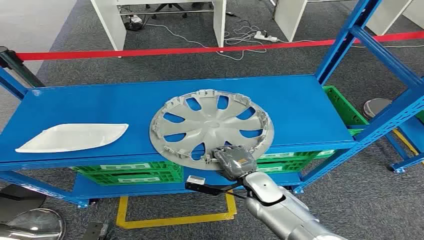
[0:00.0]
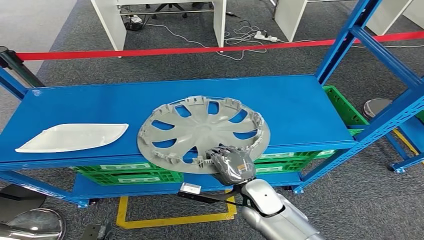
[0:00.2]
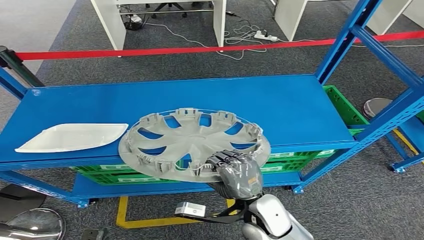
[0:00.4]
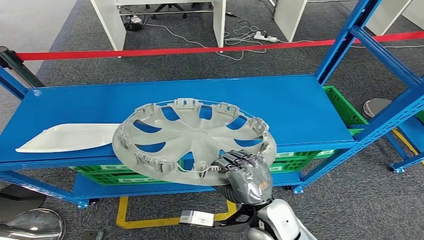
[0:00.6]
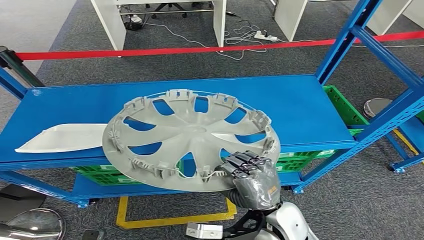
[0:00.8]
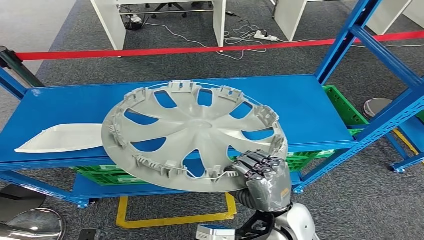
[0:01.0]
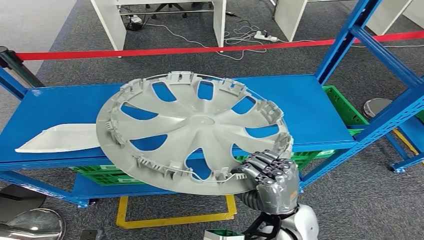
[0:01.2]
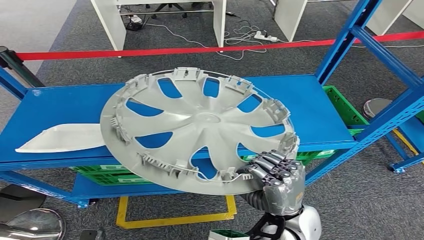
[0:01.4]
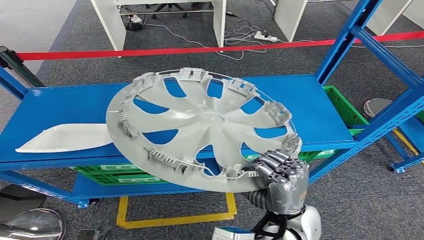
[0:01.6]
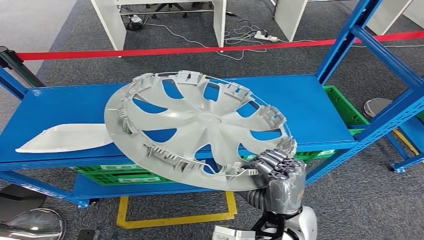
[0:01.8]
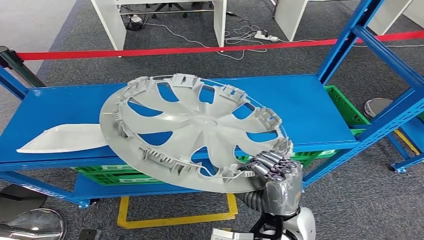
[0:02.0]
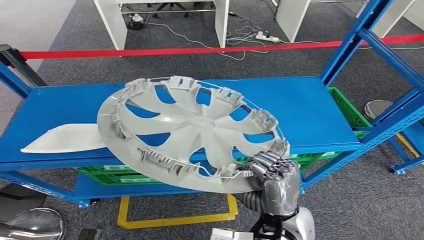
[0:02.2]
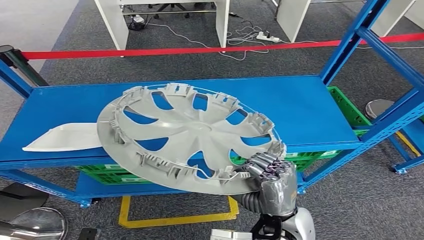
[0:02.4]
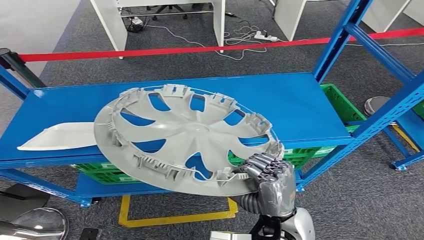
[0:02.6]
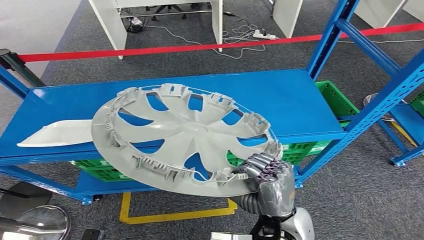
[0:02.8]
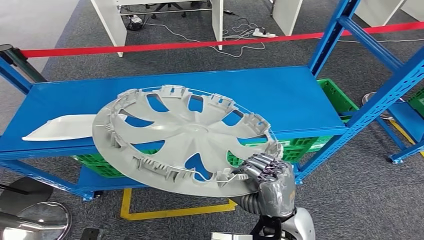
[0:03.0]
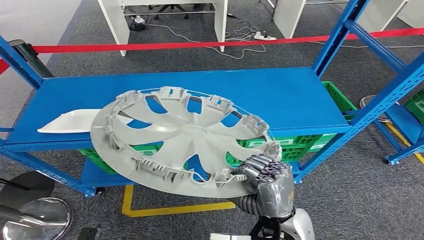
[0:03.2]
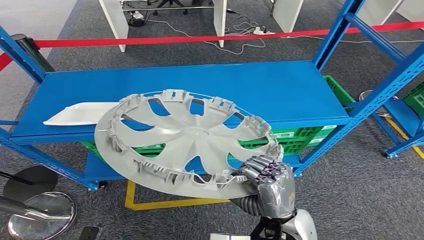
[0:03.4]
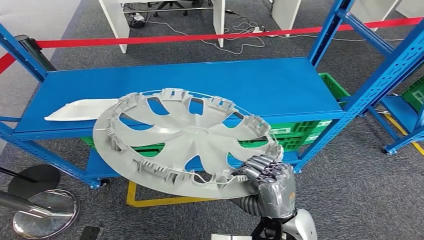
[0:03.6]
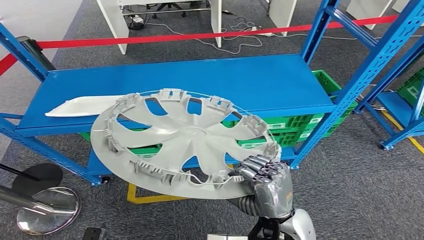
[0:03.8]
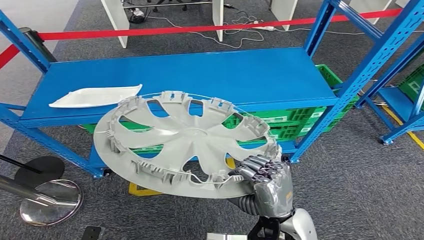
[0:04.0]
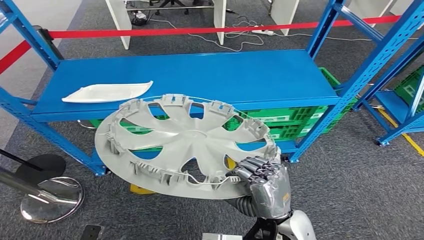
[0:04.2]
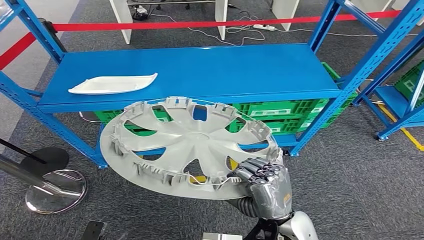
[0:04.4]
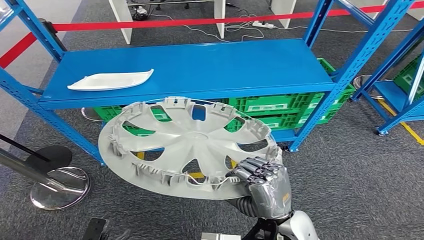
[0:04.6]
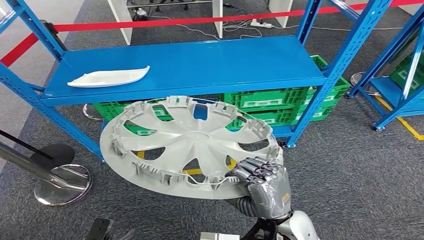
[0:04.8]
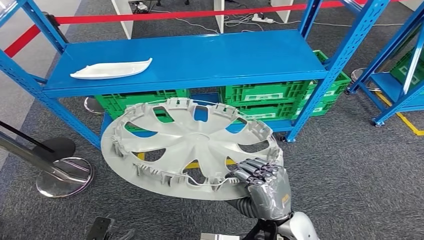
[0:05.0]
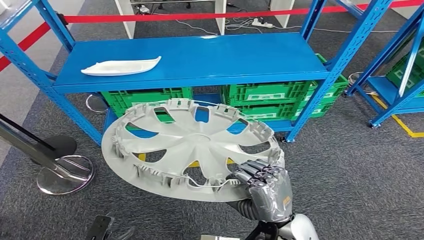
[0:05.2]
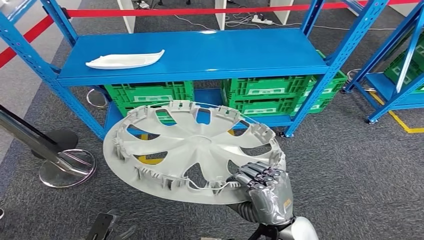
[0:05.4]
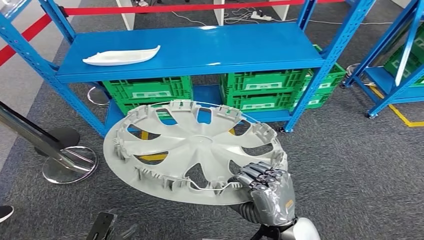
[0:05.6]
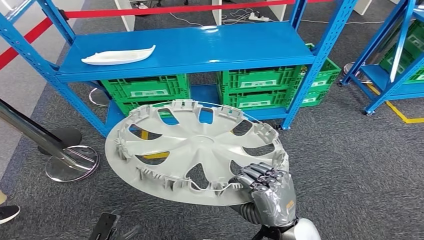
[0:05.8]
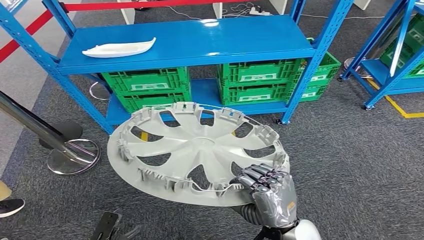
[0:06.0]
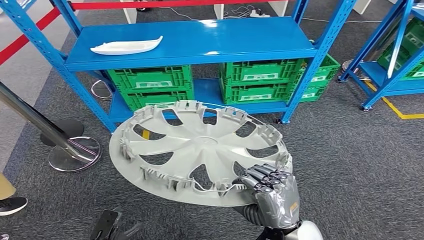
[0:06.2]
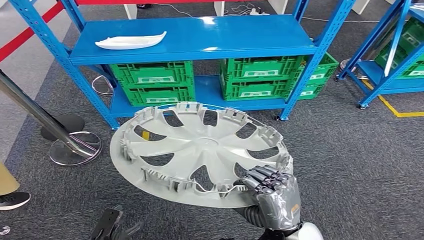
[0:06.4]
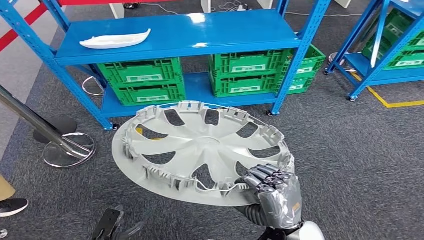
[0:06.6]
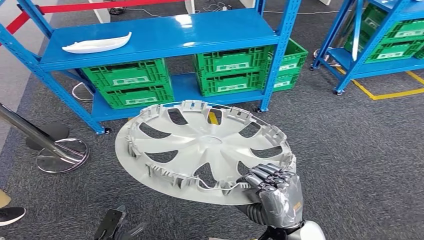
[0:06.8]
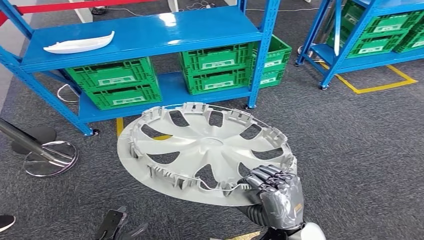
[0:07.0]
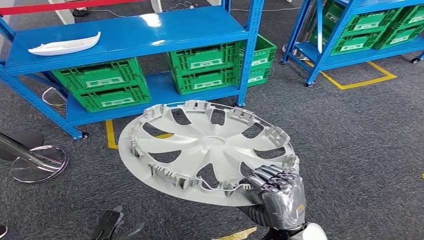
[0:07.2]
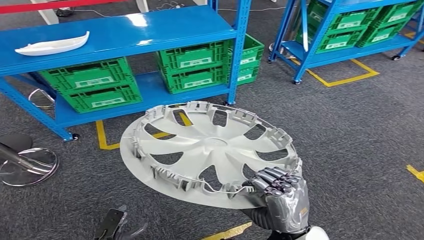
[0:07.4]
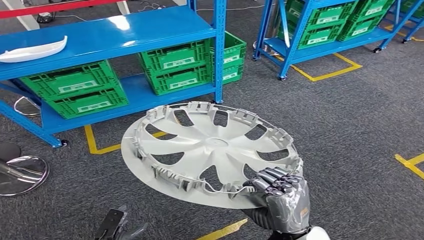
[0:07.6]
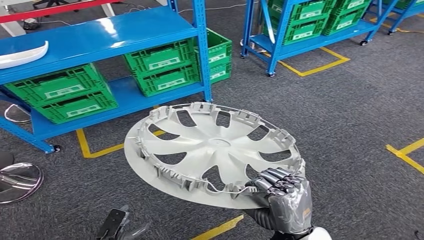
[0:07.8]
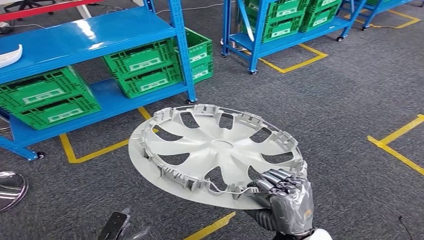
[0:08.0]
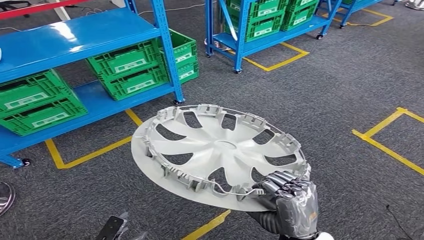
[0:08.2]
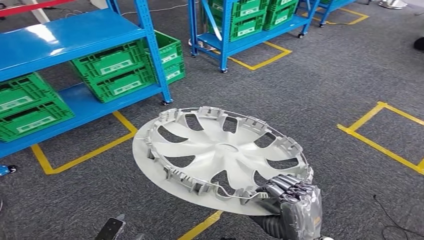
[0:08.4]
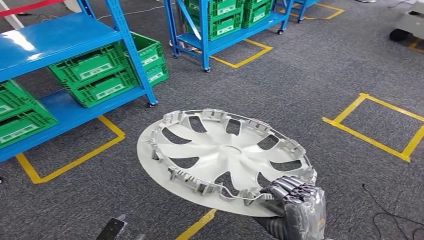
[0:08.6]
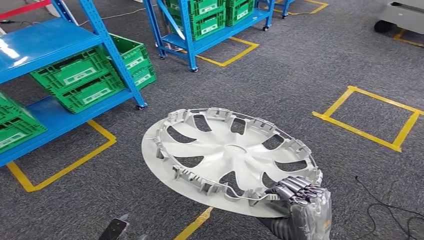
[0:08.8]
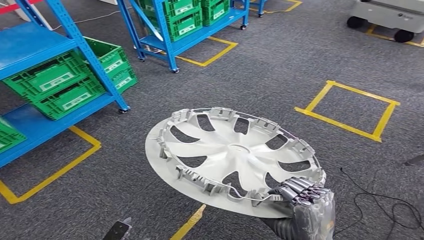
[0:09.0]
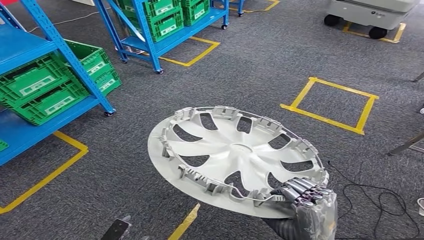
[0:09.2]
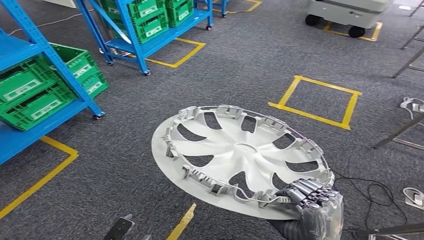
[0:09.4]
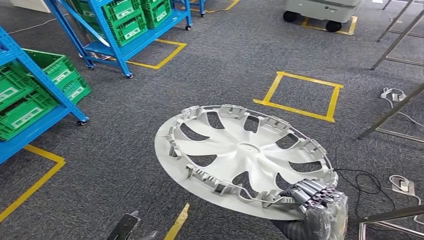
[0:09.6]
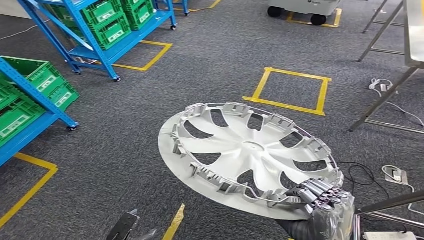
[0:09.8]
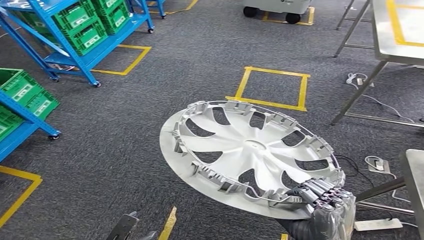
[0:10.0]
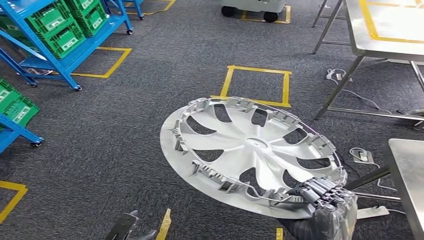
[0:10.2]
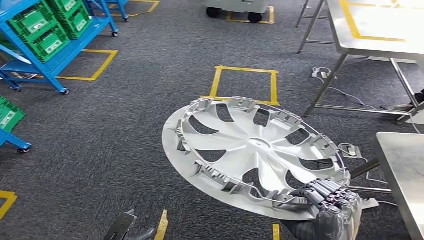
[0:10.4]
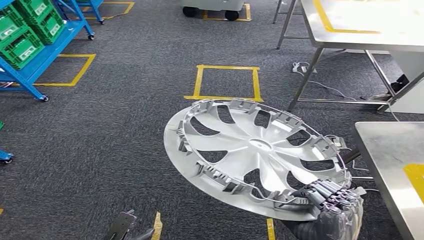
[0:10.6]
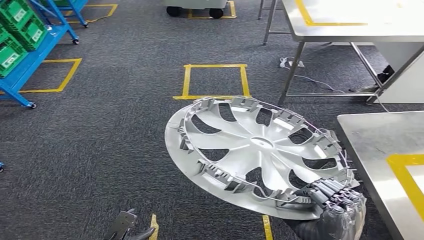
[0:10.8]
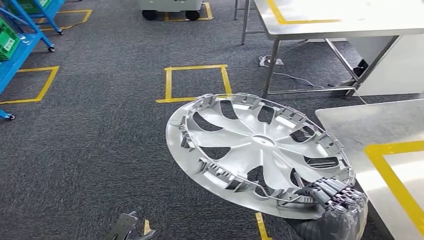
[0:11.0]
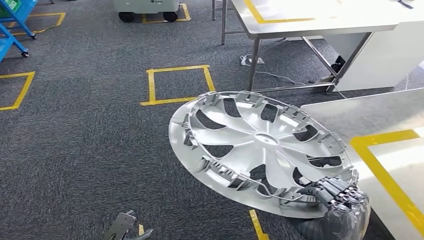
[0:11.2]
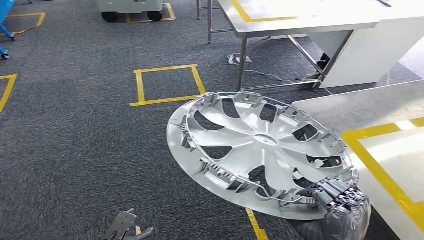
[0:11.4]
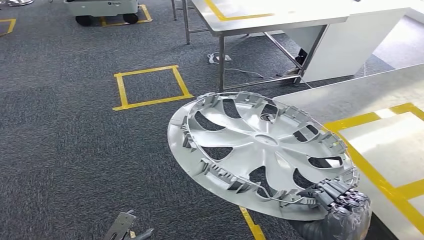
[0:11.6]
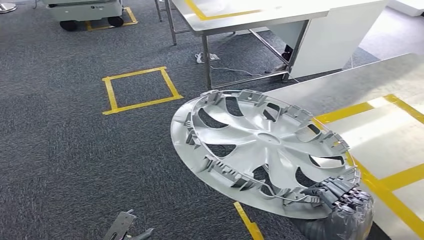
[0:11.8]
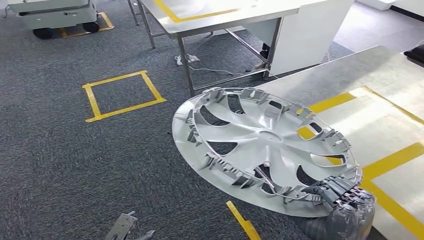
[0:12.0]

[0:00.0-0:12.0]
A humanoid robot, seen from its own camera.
Step, 0:00.0 to 0:02.8: Pick up the small component from the shelf.

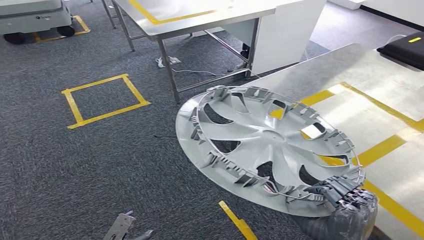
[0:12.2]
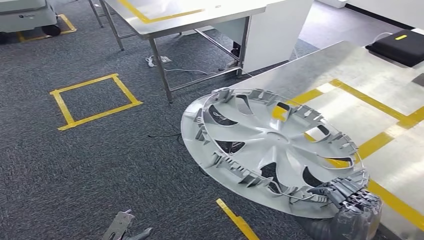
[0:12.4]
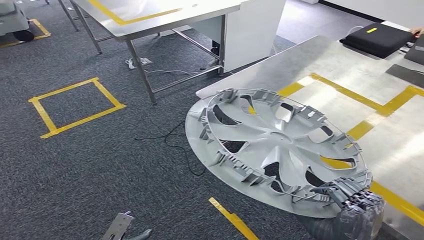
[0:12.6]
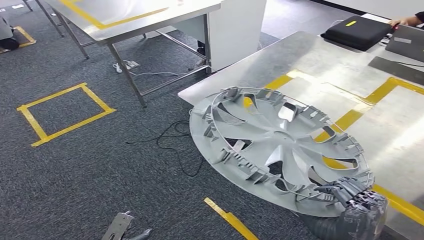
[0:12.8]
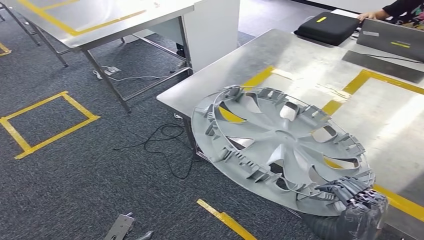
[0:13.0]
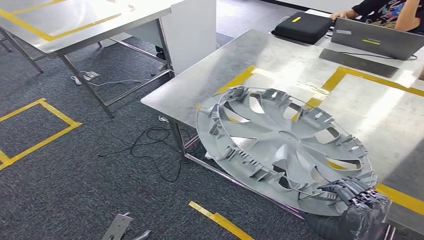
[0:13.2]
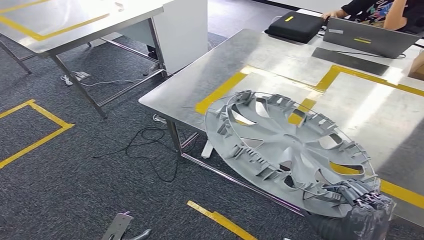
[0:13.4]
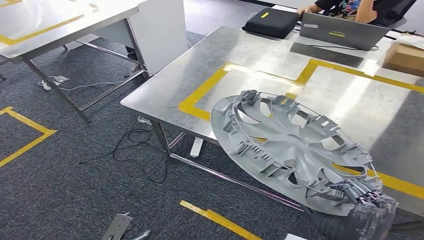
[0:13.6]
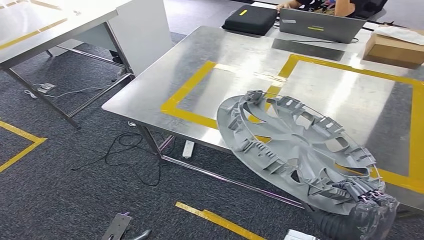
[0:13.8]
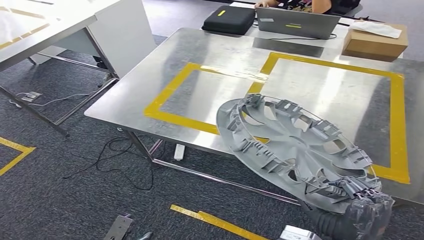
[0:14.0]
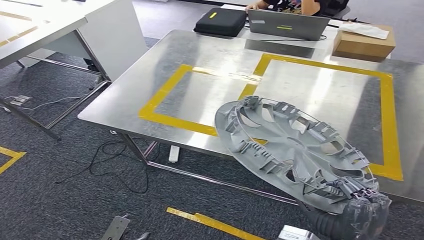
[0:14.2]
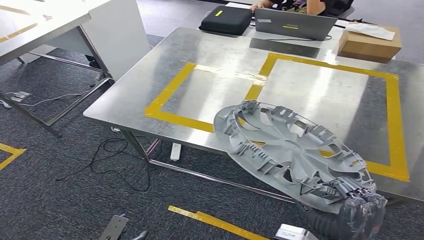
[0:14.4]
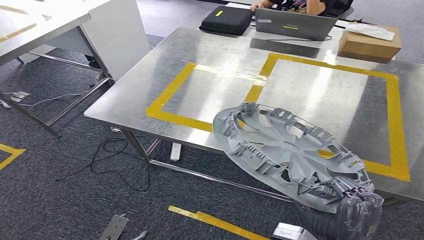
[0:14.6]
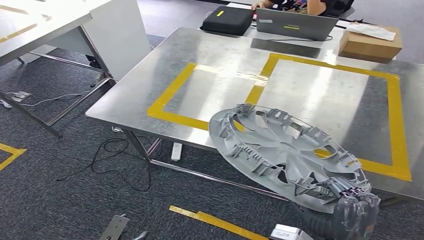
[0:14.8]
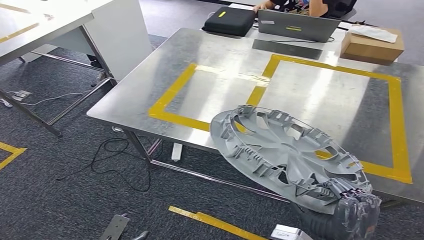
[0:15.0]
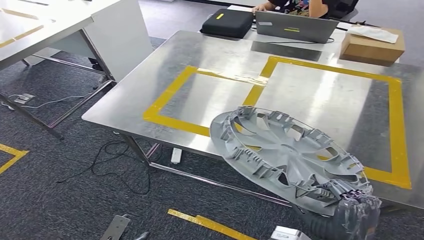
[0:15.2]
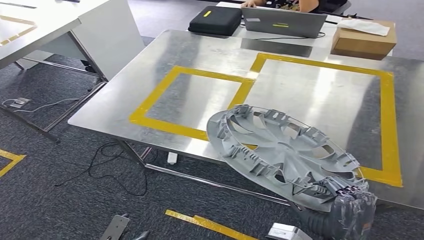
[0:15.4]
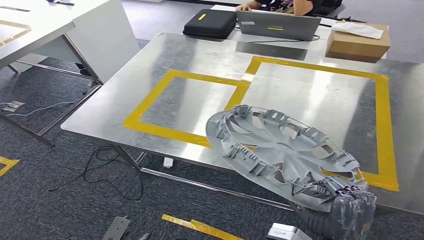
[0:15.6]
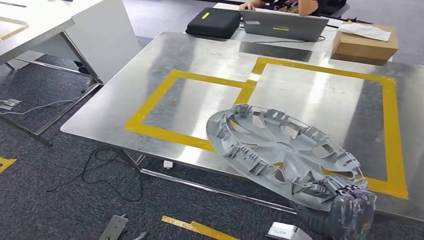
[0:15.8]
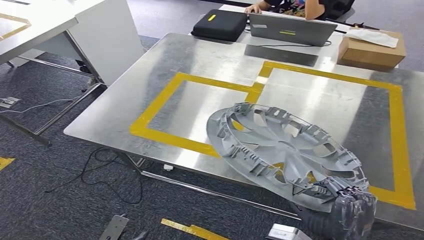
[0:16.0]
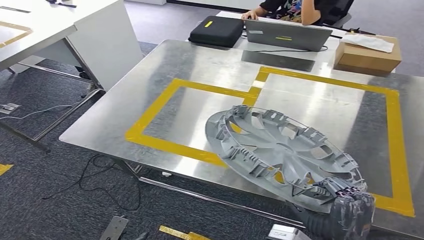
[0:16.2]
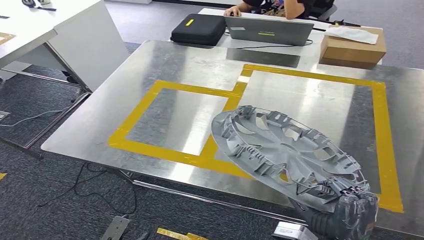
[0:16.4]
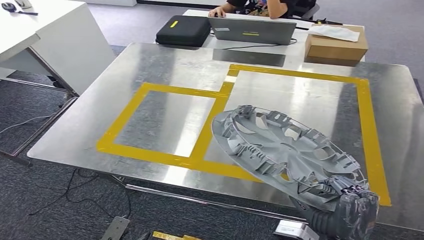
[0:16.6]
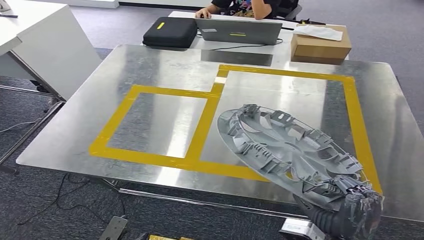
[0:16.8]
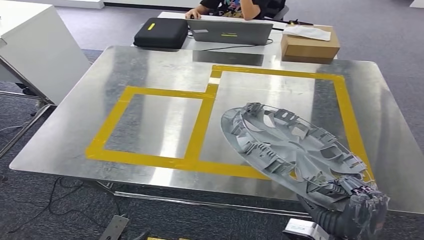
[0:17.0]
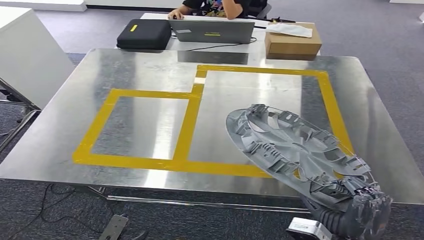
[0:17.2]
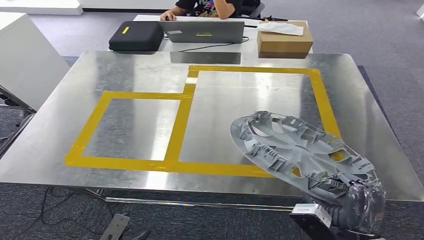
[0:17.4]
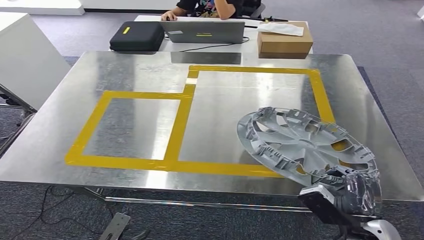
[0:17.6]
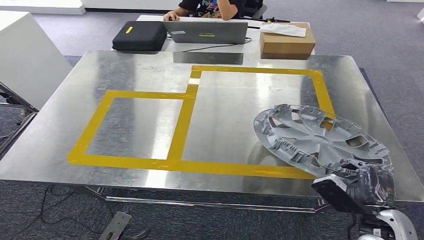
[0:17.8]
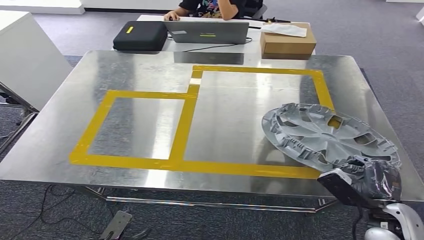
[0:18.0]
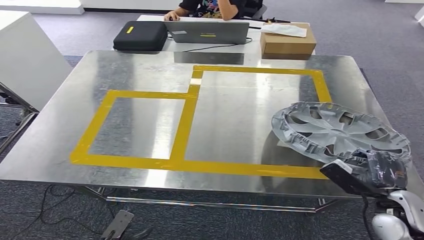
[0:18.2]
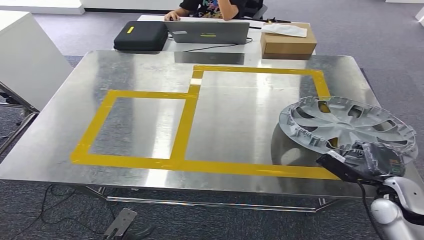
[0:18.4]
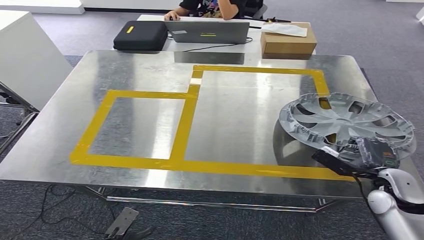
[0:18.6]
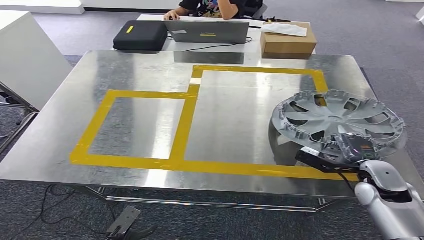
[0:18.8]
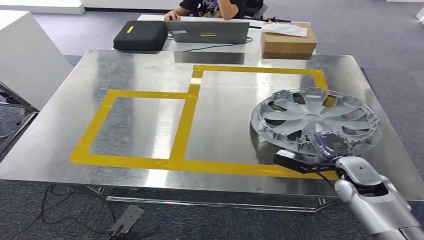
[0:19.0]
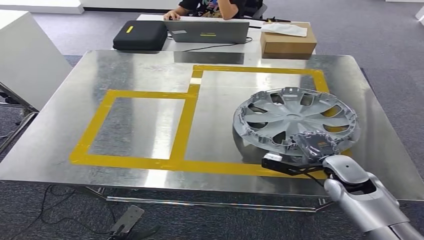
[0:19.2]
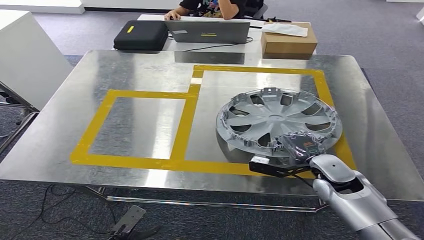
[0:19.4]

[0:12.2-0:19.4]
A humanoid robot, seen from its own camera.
Step, 0:12.2 to 0:18.2: Move the small component to the workbench.
0:18.0 to 0:19.4: The right hand goes approximately 15 cm forward and to the left.
